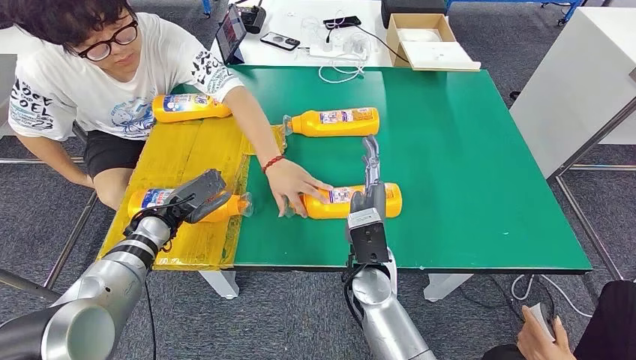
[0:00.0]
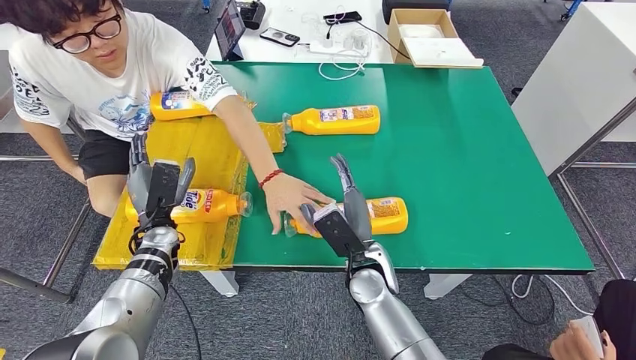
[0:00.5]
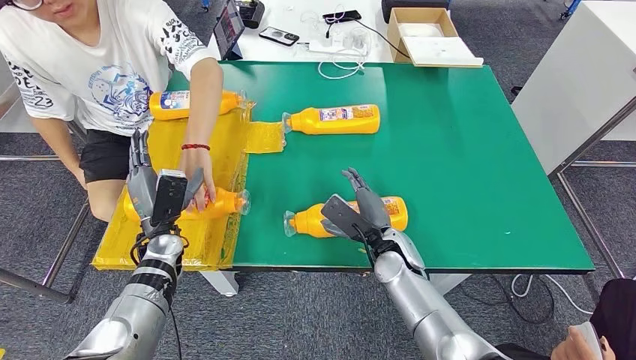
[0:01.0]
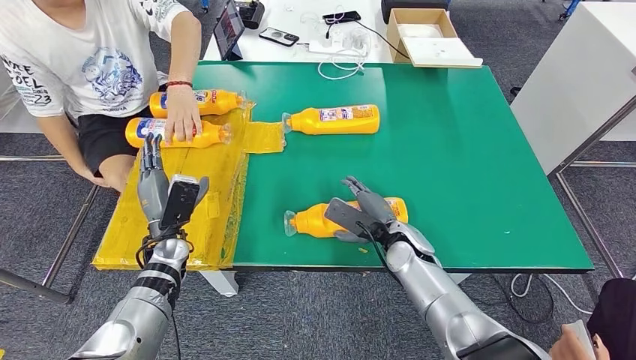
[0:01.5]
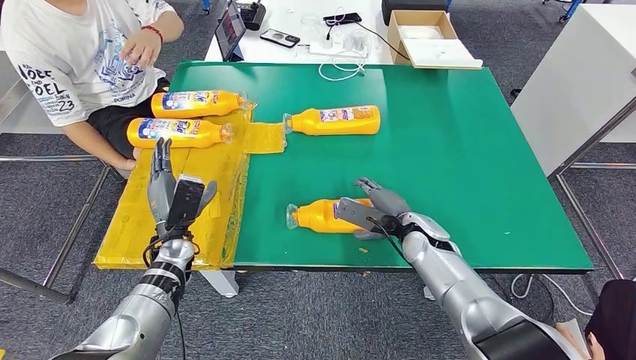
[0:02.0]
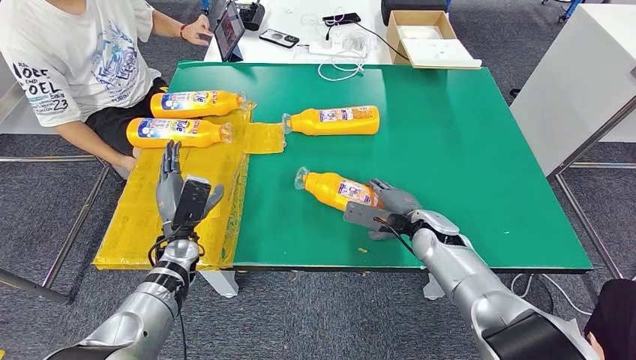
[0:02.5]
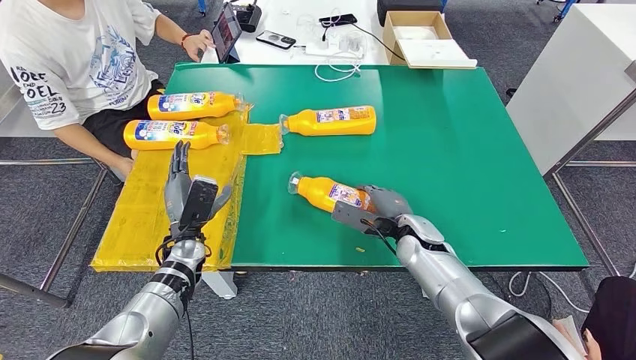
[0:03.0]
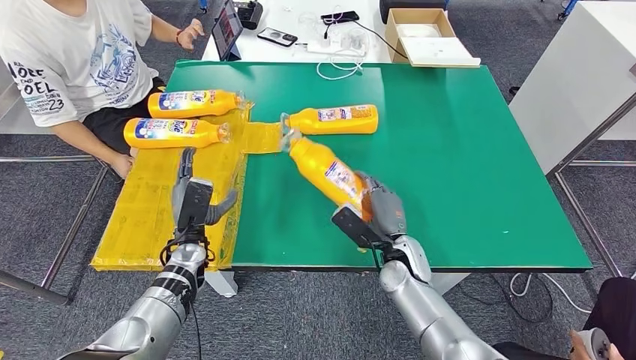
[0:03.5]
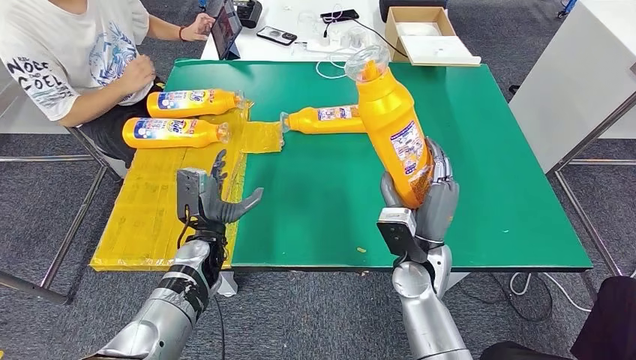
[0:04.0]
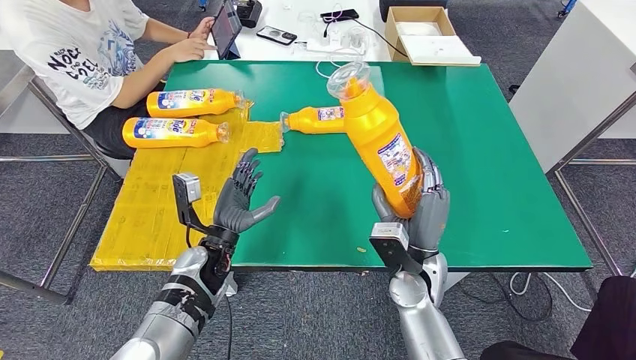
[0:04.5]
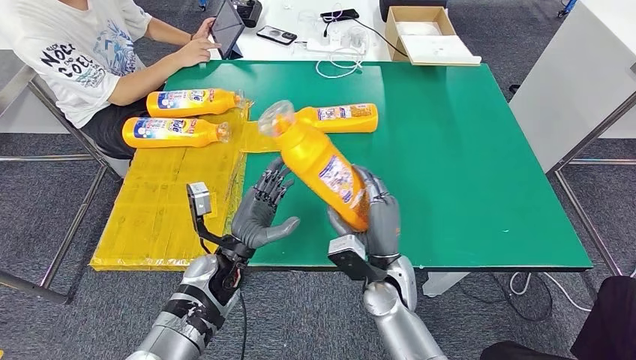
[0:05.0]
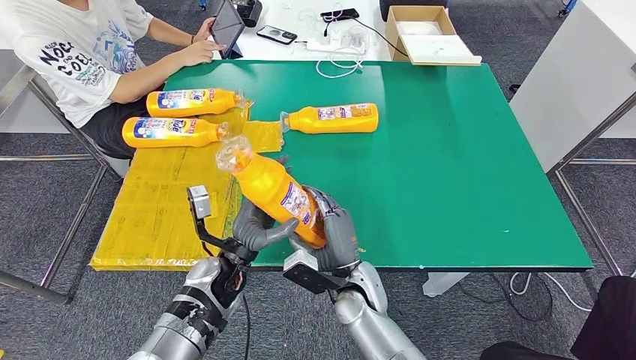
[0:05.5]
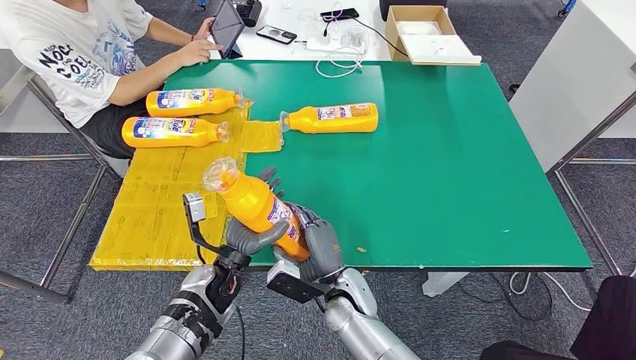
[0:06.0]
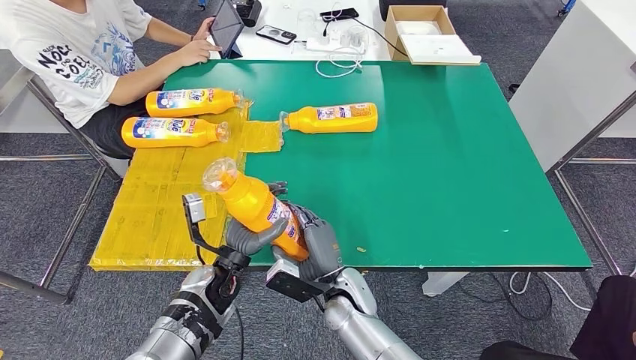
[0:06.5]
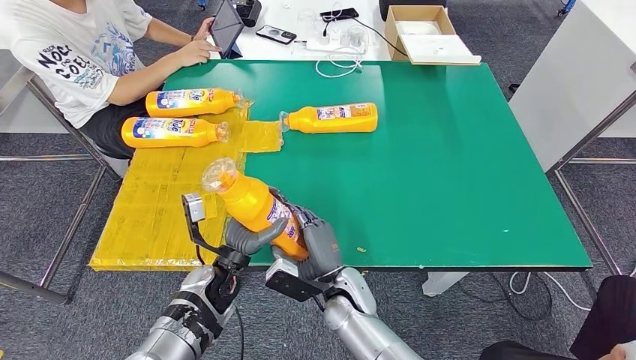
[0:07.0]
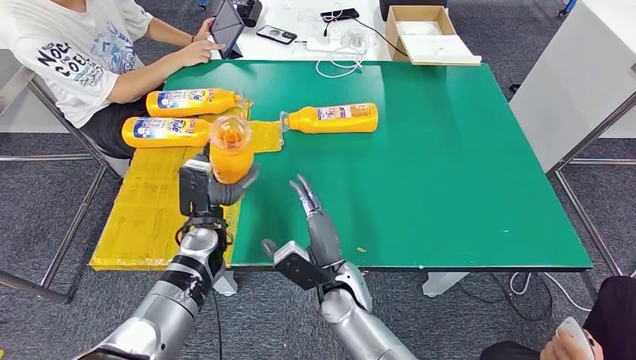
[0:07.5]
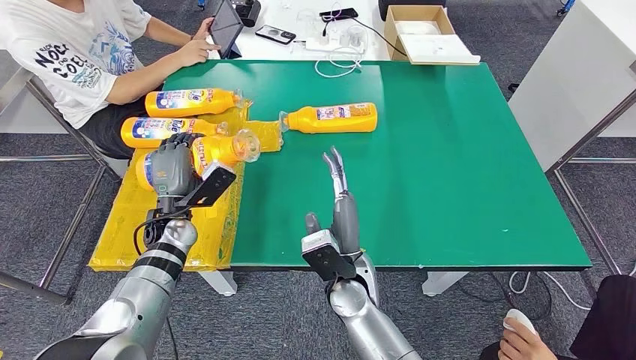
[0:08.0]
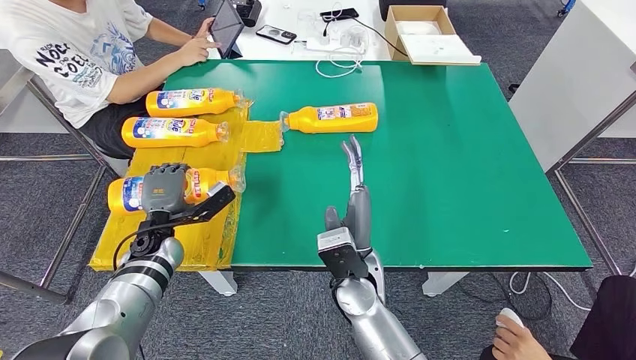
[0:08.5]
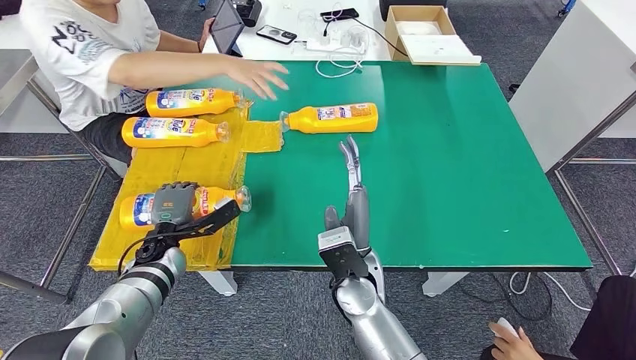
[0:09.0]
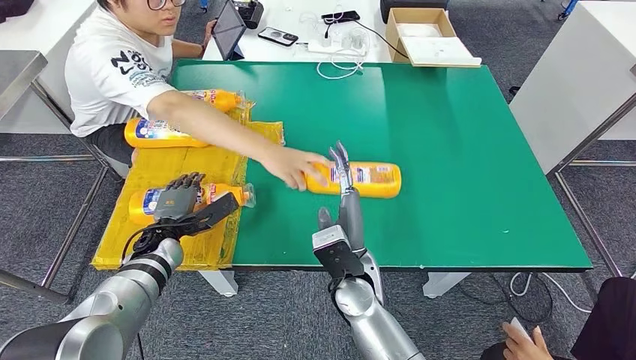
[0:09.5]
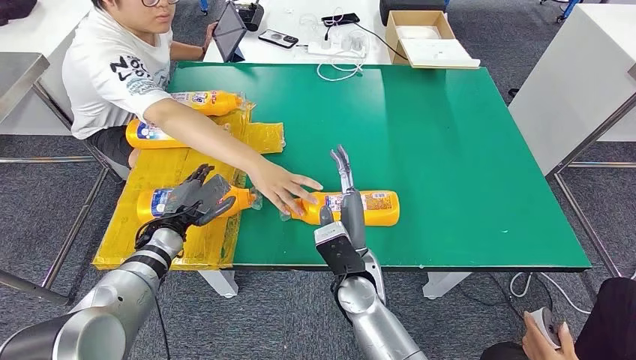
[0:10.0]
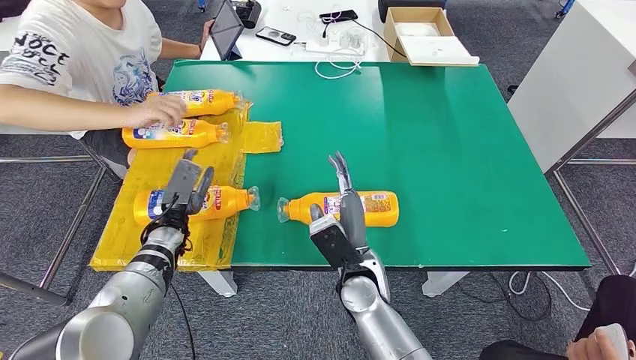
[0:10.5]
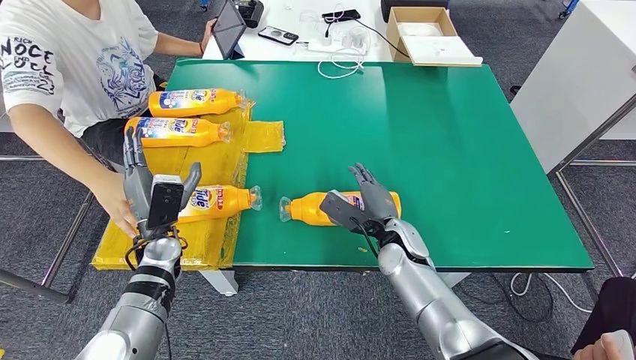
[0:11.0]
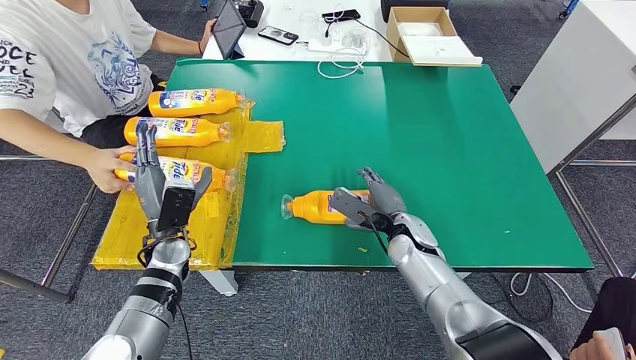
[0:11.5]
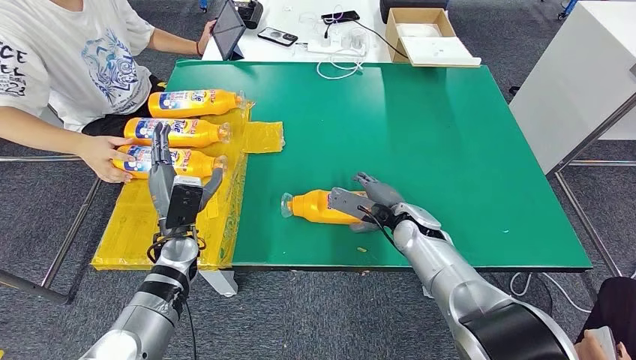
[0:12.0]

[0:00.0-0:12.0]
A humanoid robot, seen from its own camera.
Step, 0:00.0 to 0:04.0: Pick up the fast-moving consumer goods bottle from the table.
Step, 0:04.5 to 0:08.0: Flip the fast-moving consumer goods bottle to the front side.
0:06.0 to 0:08.0: The right hand travels upward by approximately 5 cm, while the left hand is displaced to the left, forward and upward by some 15 cm.

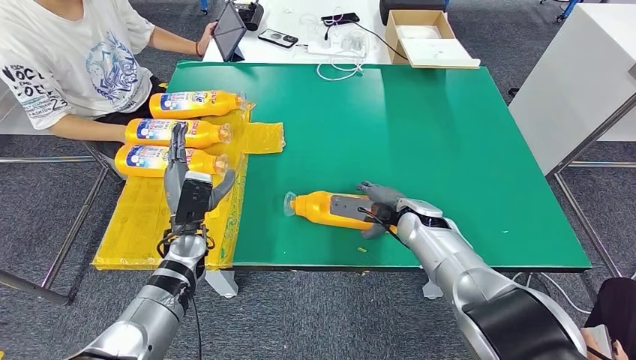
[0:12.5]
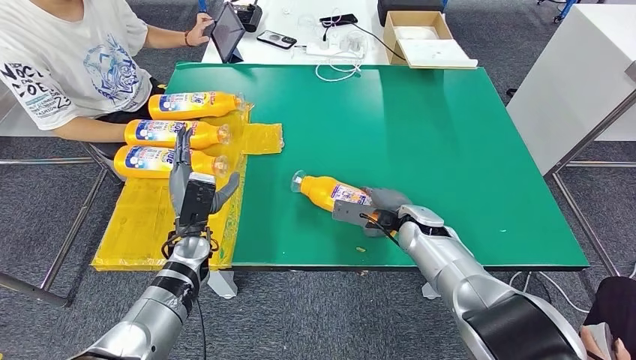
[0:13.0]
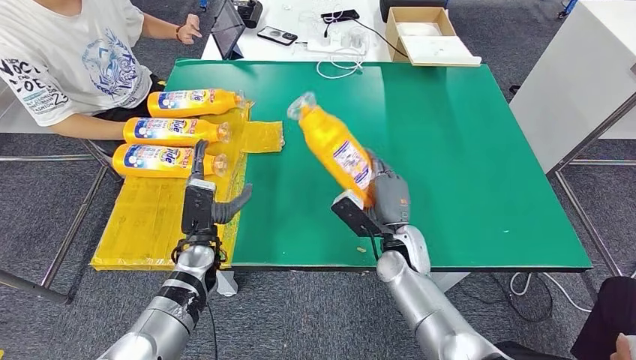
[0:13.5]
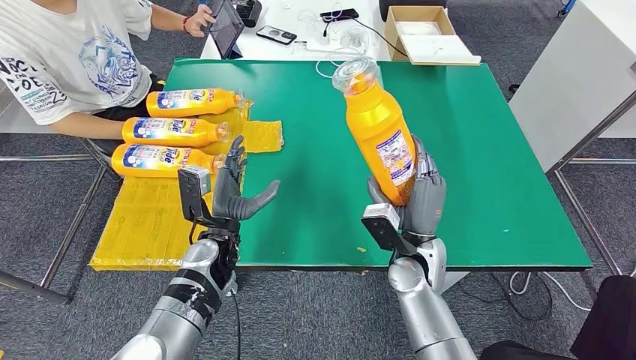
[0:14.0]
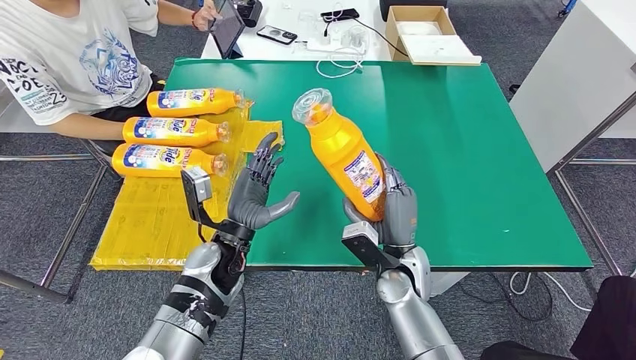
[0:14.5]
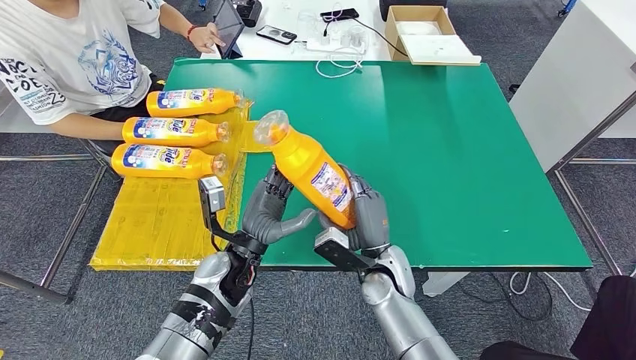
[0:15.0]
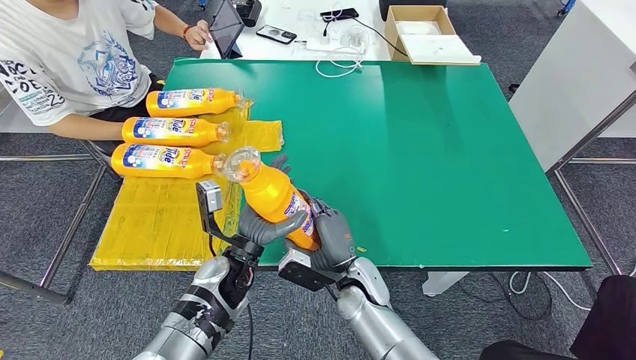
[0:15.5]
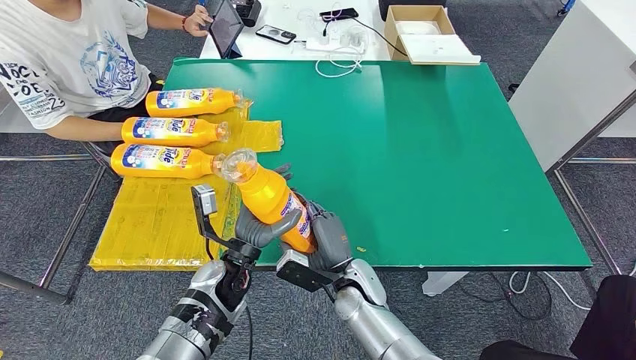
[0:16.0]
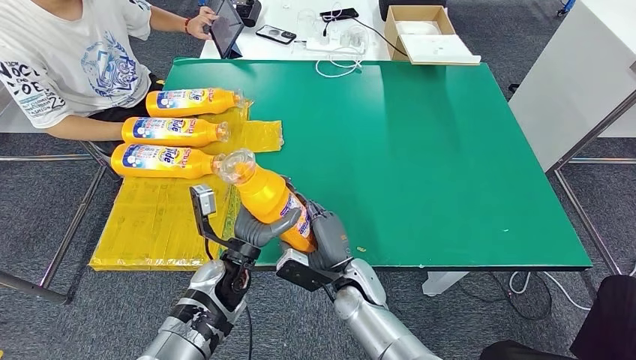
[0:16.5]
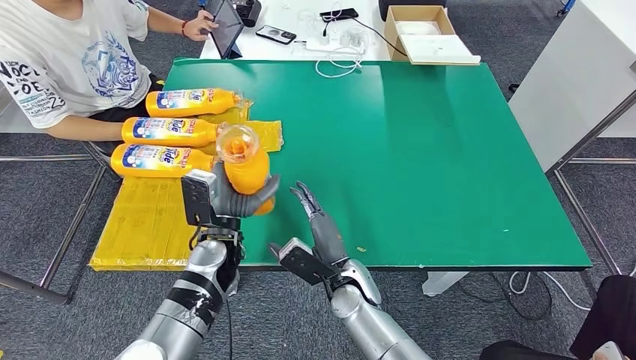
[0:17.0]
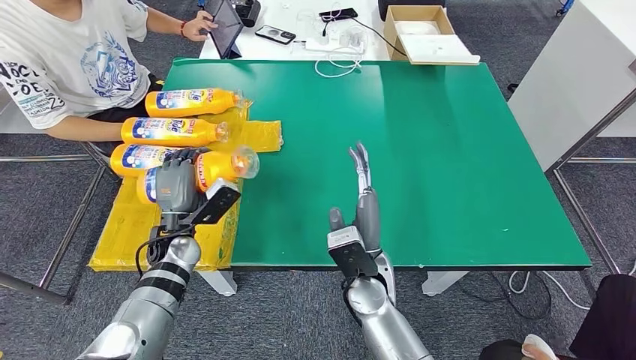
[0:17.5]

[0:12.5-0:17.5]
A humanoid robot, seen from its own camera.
Step, 0:14.0 to 0:17.5: Flip the fast-moving consumer goods bottle to the front side.
0:15.0 to 0:17.5: The left hand goes about 15 cm to the left and forward; the right hand shifts by roughly 5 cm.
